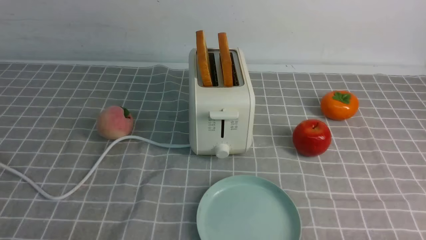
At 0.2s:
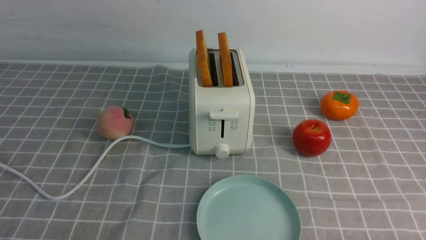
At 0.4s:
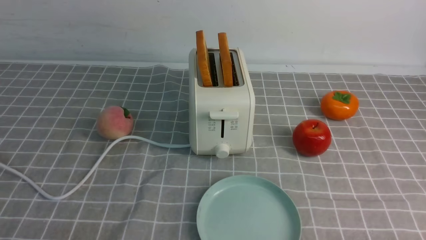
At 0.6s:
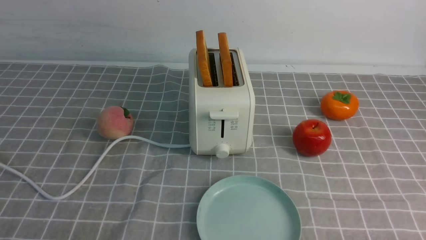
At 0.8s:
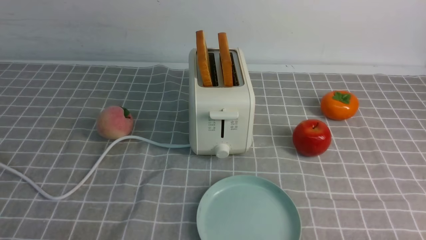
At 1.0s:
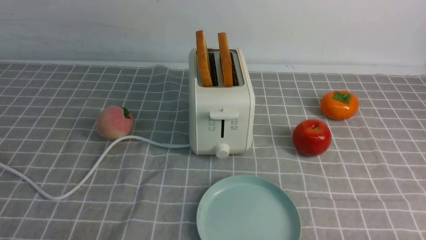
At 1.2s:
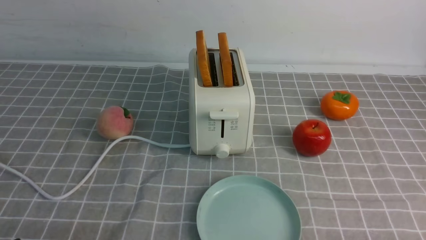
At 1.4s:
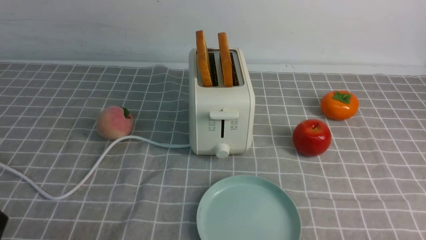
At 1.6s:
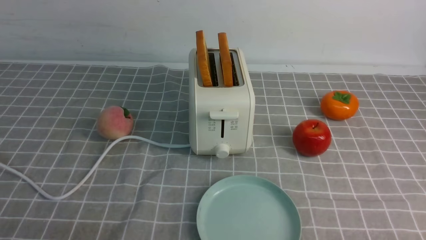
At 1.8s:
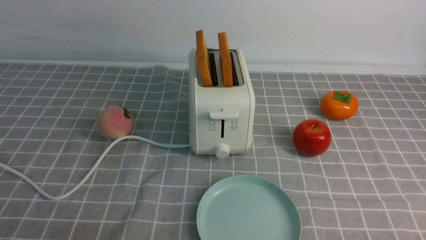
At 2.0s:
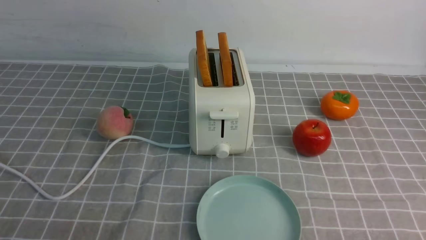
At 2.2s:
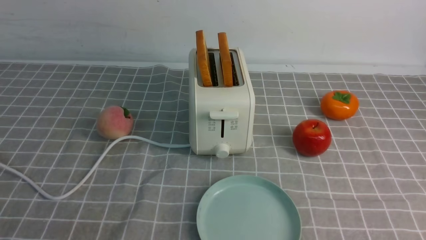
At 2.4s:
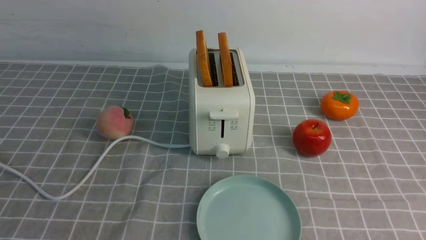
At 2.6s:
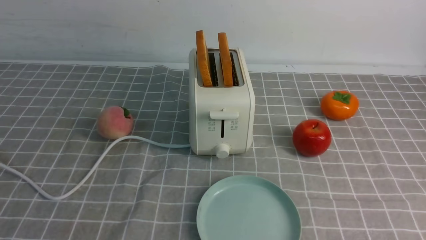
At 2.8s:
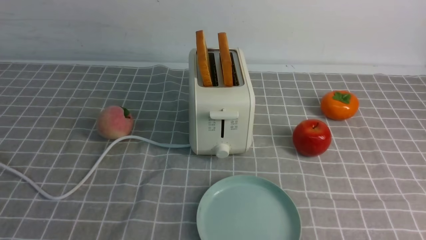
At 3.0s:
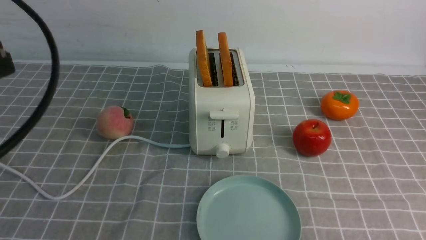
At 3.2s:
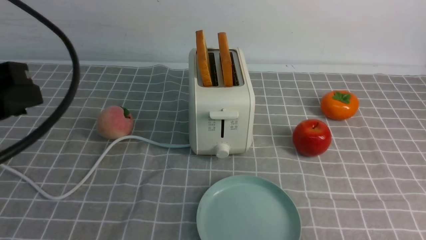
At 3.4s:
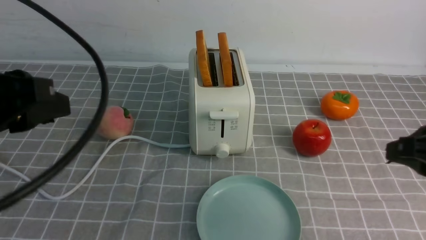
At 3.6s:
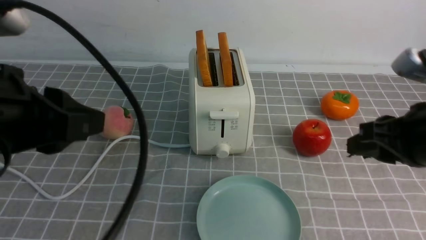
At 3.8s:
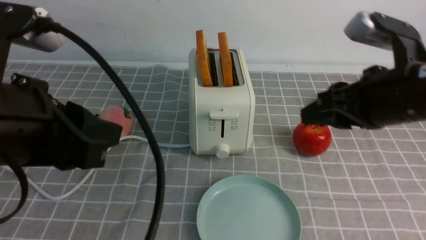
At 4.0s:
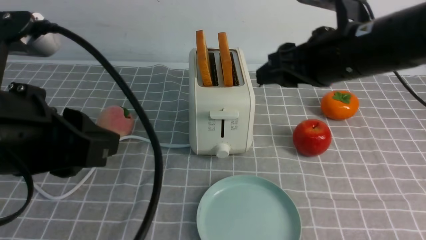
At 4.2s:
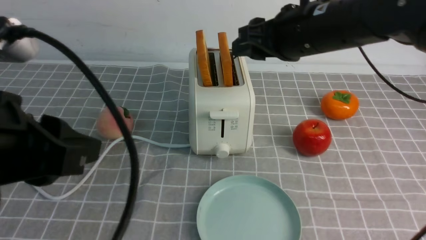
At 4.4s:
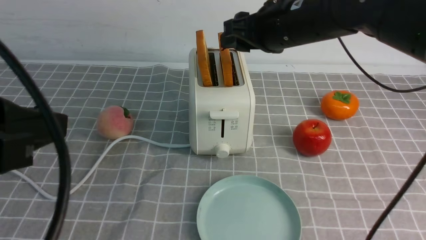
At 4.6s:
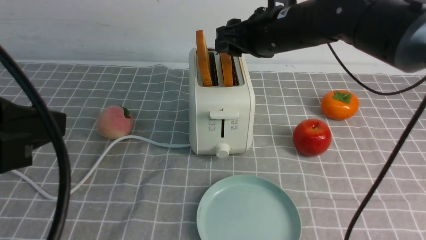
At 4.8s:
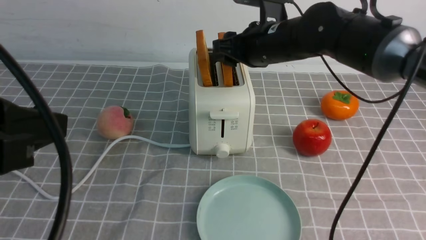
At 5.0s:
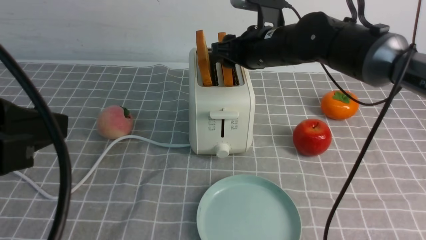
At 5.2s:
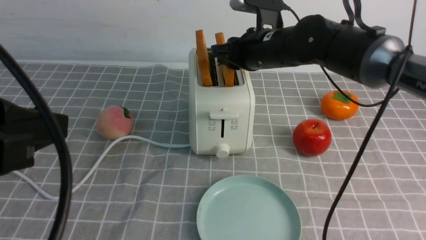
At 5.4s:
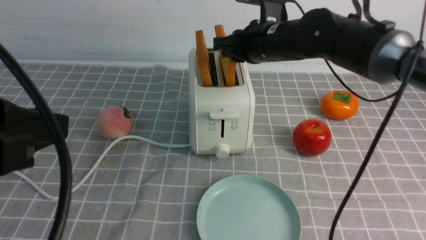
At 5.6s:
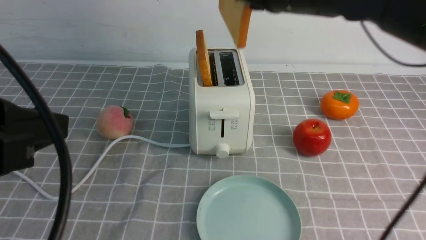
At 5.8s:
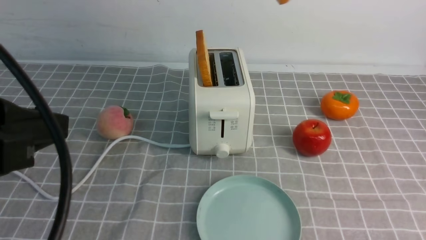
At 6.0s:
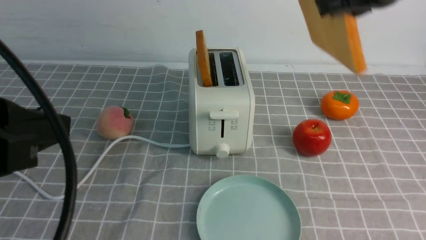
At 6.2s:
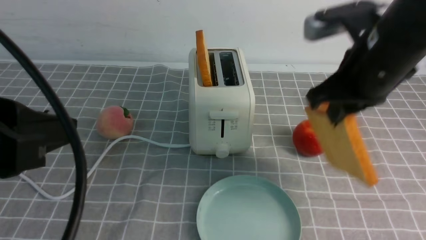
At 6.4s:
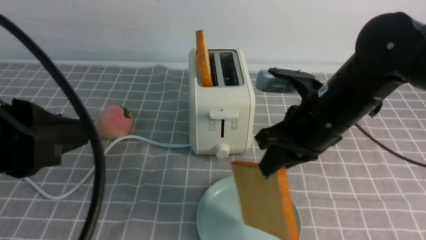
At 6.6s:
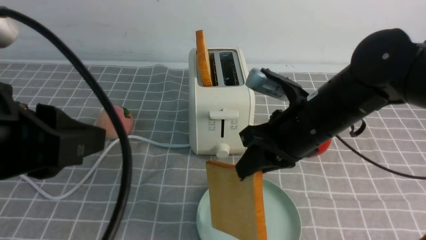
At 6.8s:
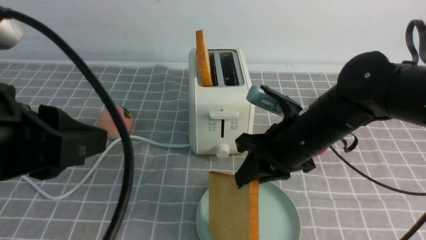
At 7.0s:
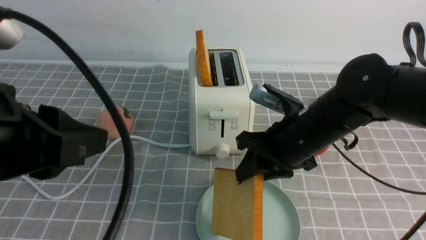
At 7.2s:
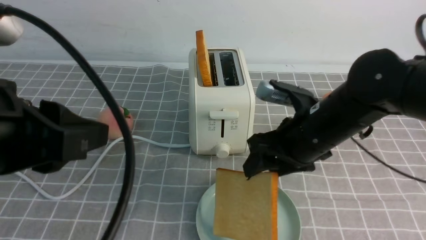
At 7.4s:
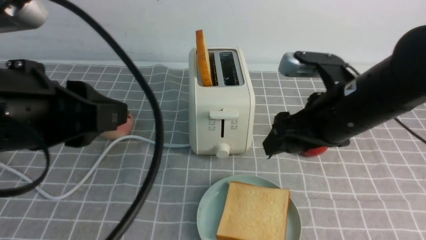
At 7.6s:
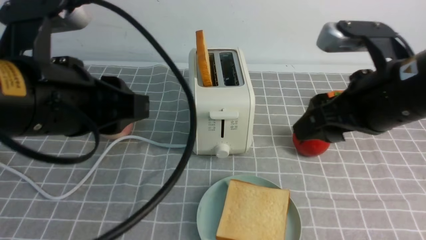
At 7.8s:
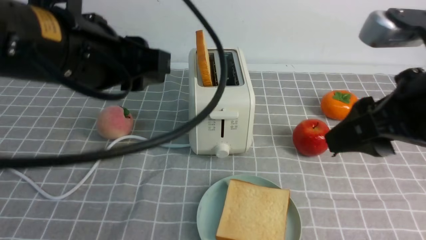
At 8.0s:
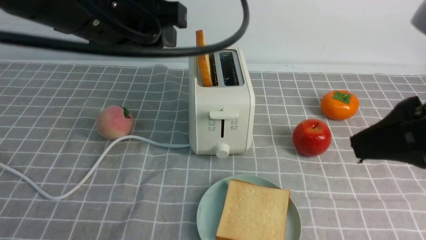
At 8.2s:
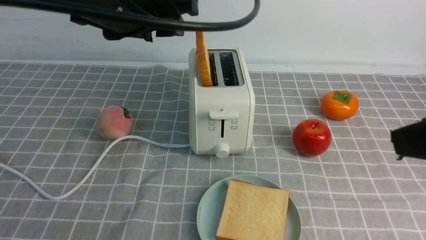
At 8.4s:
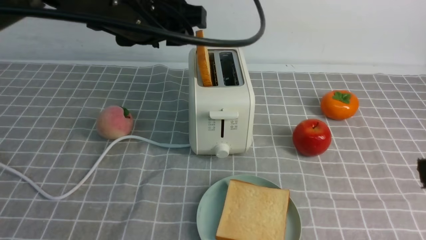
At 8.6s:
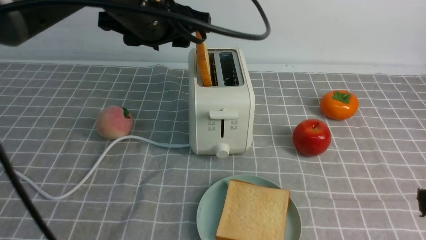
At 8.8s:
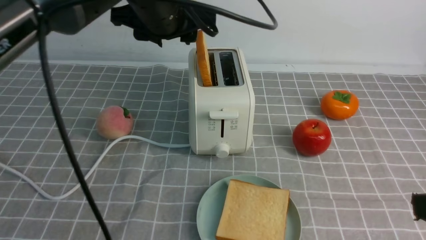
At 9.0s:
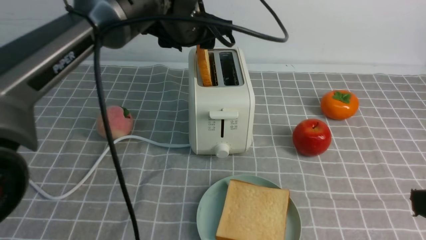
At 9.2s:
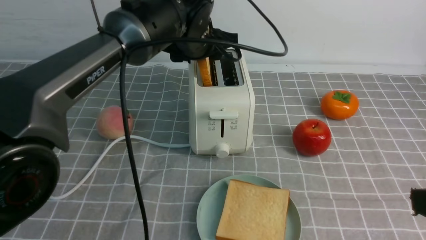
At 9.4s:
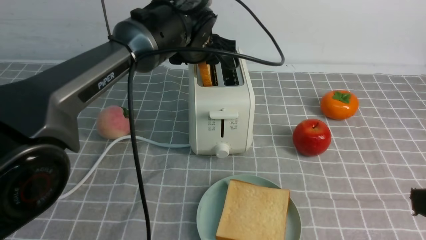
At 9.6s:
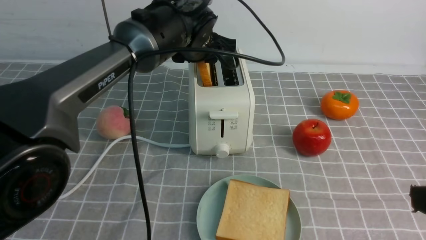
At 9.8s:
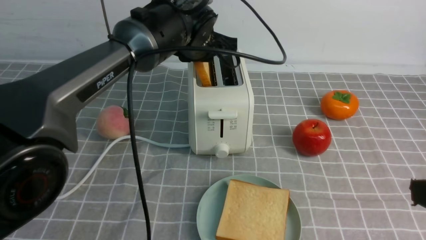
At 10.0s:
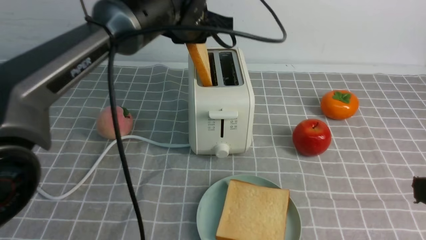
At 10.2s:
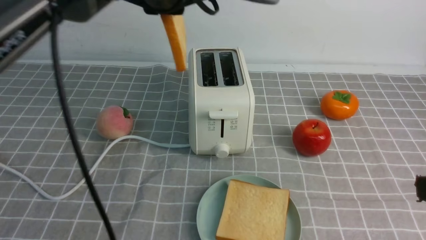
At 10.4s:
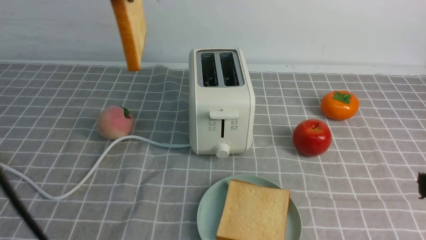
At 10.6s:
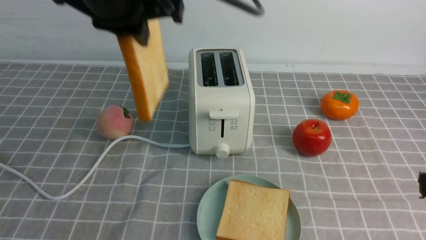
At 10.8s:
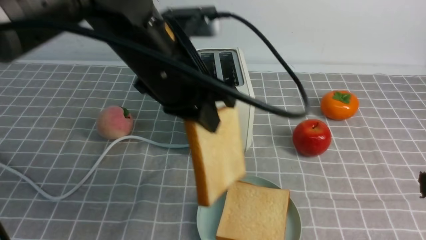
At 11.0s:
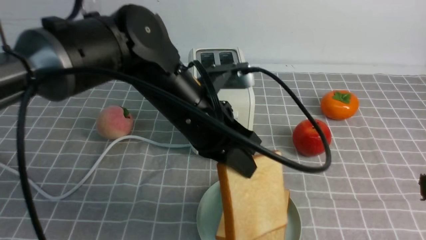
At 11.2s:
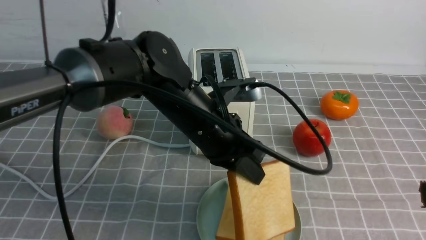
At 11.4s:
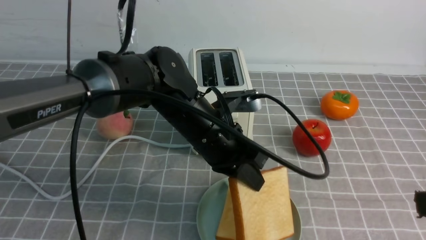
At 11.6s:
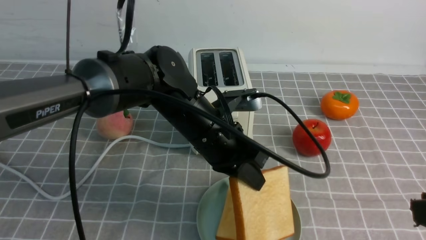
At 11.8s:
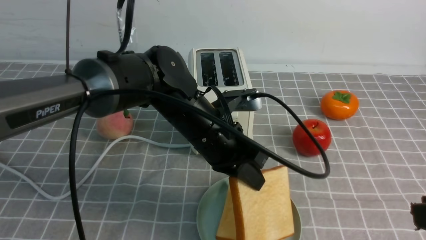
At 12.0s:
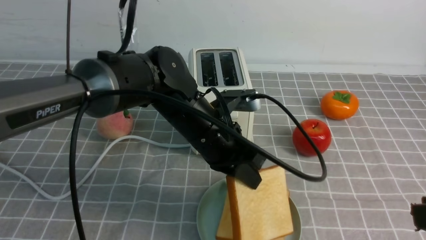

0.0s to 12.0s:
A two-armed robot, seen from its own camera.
Task of the whole recording: take toasted bread from bread machine on grey coffee table place on plate.
Step, 0.0s to 5.4s: use the right arm to take out a slice of bread.
Step, 5.6s to 7.4s: use the right arm to put a slice of bread into the plate.
Step, 7.6s to 10.0s: use the left arm to take out a slice of bread.
1.6s to 3.0s: The left gripper heads upward and forward, covering about 20 cm.
3.0s to 4.4s: The left gripper ends up roughly 5 cm from where it was. The right gripper goes roughly 30 cm forward and to the left.
4.4s to 6.0s: The right gripper is displaced backward, to the right and upward by approximately 10 cm, and closes up.
6.0s to 7.6s: The left gripper travels forward and to the right by roughly 10 cm. The right gripper moves backward and downward, roughly 10 cm, and opens up.
7.6s to 9.0s: The left gripper moves forward and to the right, roughly 25 cm, while the right gripper shifts some 15 cm backward and to the right.
9.0s to 10.4s: The left gripper heads upward, backward and to the left, covering some 15 cm, and closes up.
10.4s to 12.0s: The left gripper shifts some 20 cm downward and to the right.

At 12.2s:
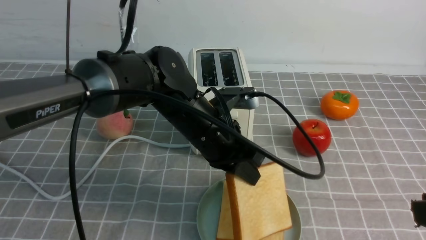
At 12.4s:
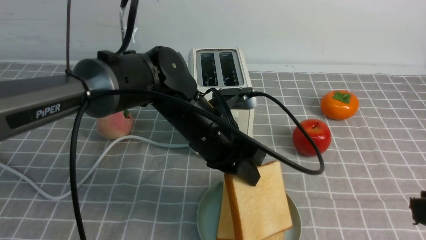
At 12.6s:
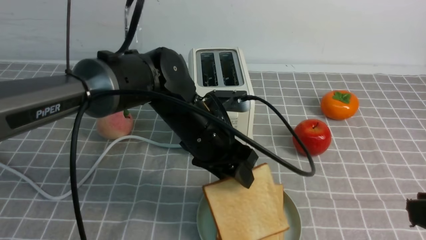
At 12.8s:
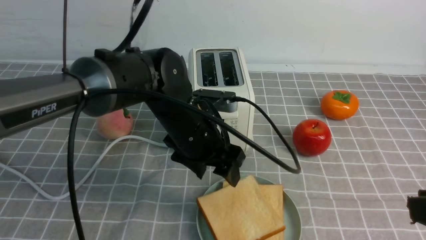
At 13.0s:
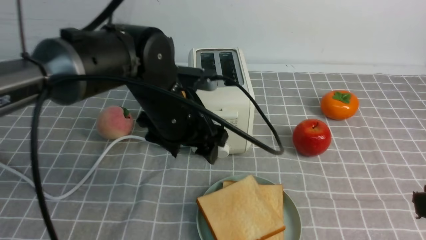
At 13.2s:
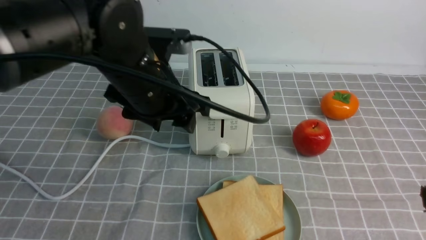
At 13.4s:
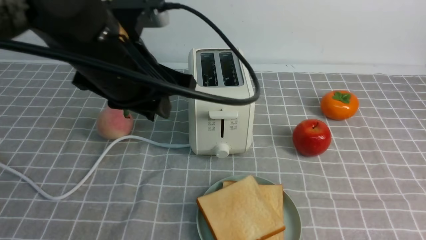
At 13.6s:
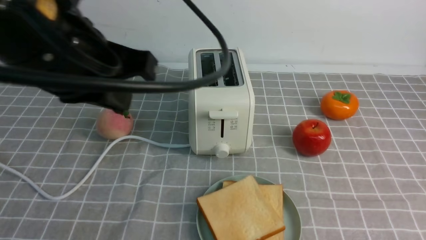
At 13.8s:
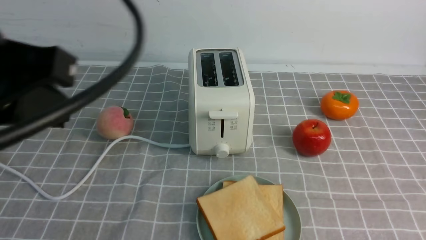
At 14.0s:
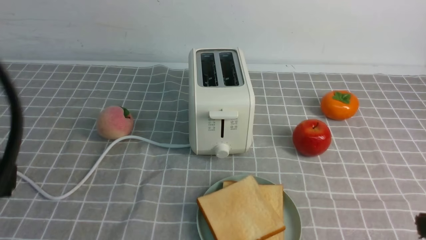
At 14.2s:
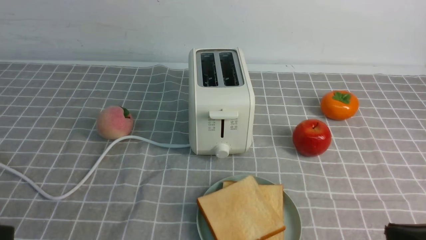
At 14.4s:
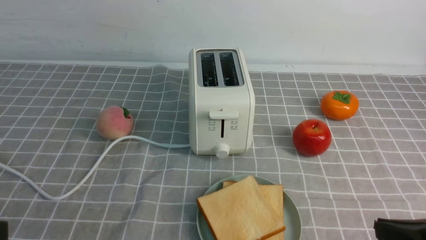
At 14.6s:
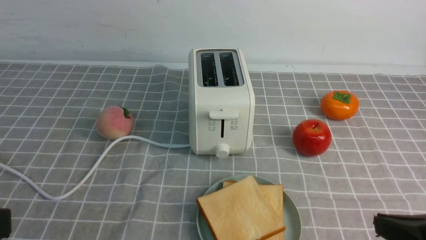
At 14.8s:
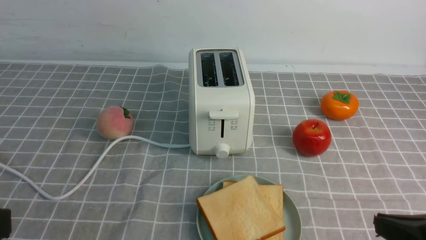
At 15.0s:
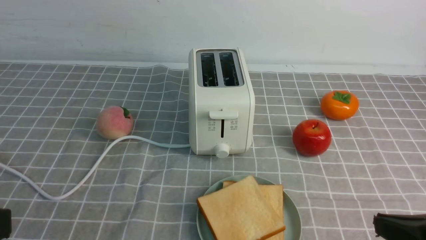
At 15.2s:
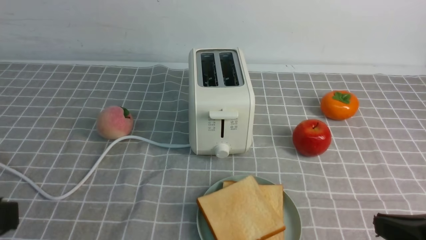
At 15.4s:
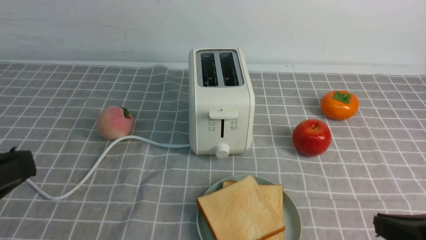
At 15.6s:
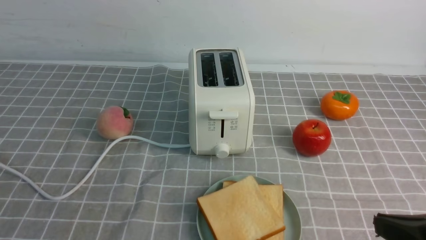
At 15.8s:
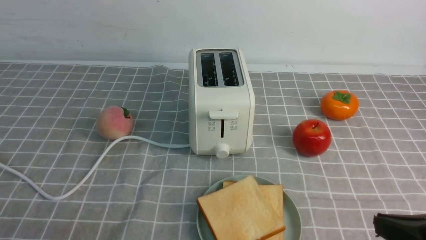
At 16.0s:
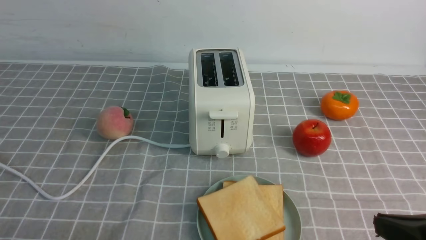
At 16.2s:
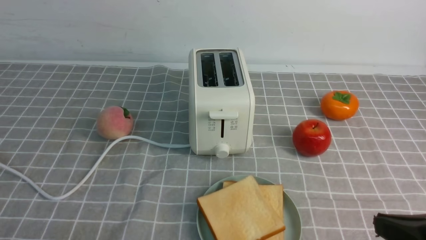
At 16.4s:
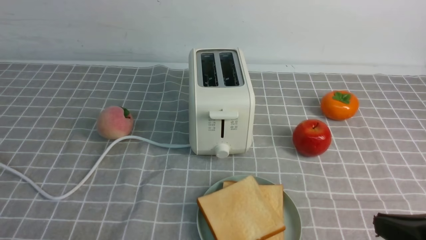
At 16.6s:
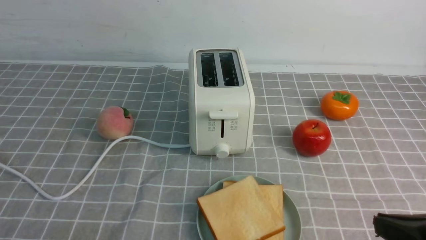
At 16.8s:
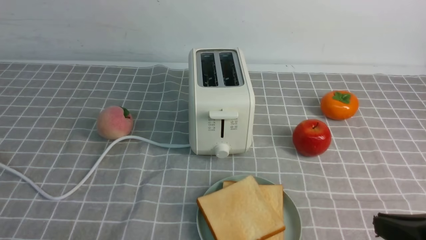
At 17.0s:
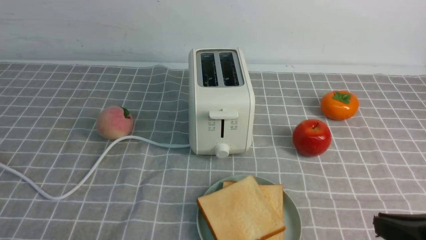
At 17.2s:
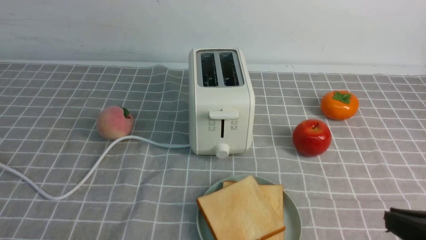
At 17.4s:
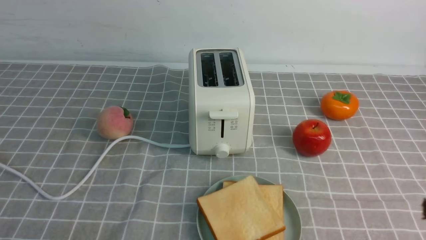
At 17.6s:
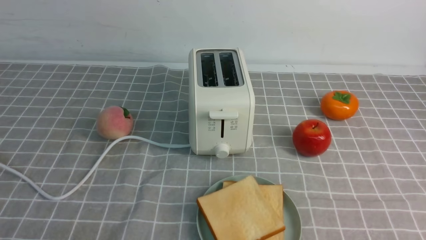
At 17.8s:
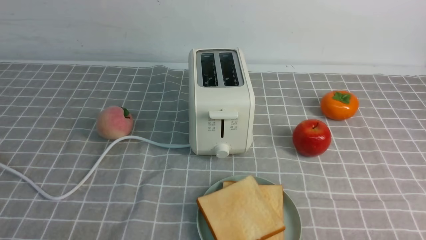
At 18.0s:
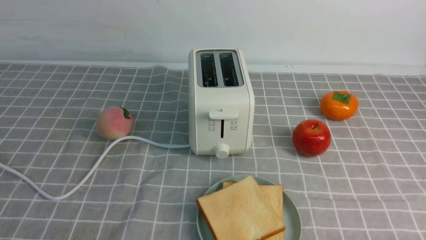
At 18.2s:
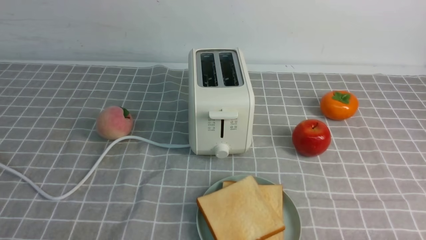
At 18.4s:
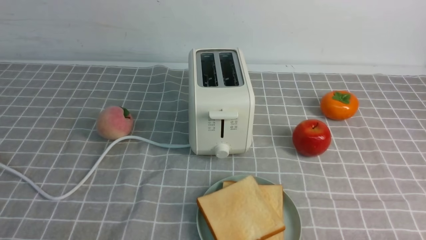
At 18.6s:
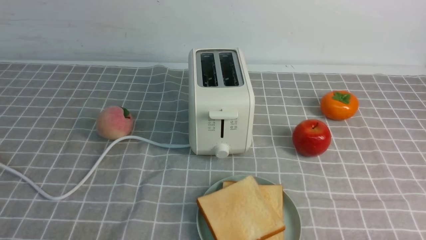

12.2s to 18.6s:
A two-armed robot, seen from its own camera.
Task of the whole recording: take toasted bread from bread machine on grey coffee table place on plate.
12.2s to 13.8s: The left gripper goes roughly 30 cm upward, backward and to the left, and opens and closes again.
13.8s to 15.4s: The left gripper travels downward and backward by roughly 10 cm; the right gripper moves downward, roughly 5 cm.
15.4s to 17.0s: The left gripper heads downward, covering about 15 cm.
17.0s to 18.6s: The right gripper heads downward, to the right and backward, covering some 15 cm.
